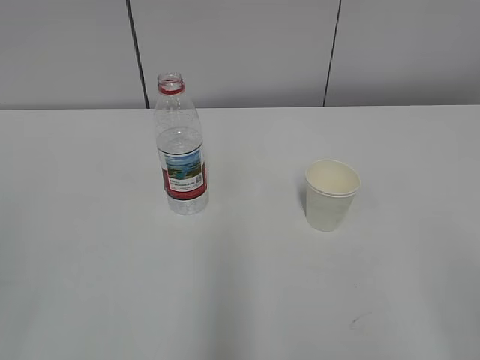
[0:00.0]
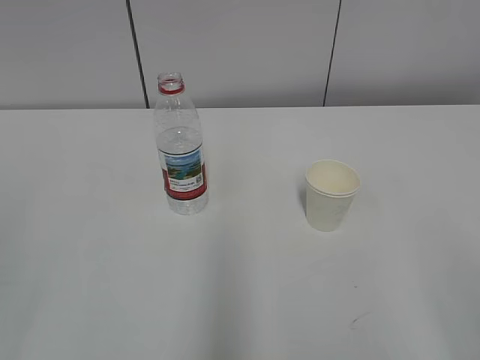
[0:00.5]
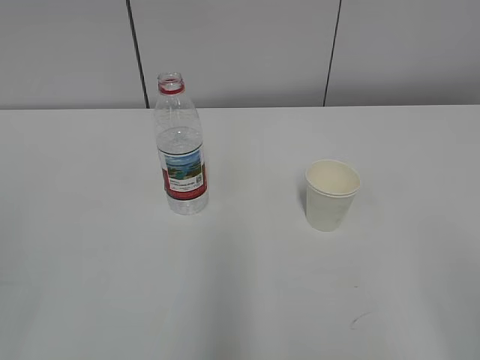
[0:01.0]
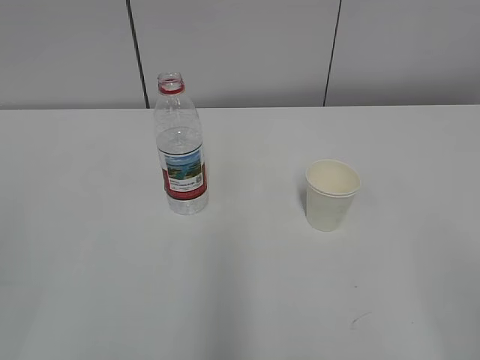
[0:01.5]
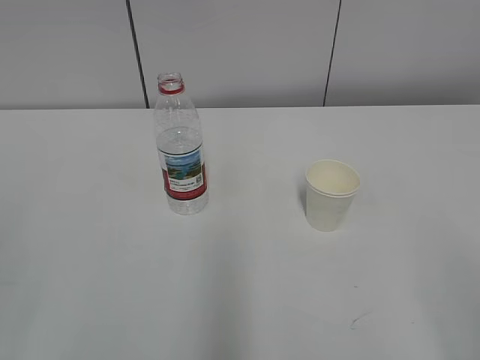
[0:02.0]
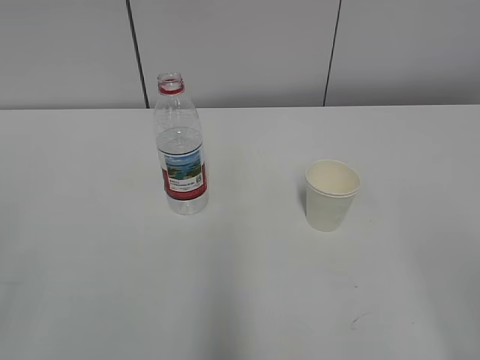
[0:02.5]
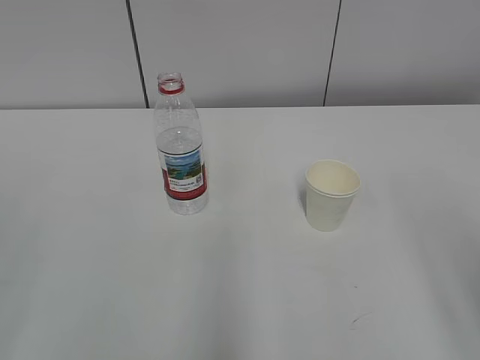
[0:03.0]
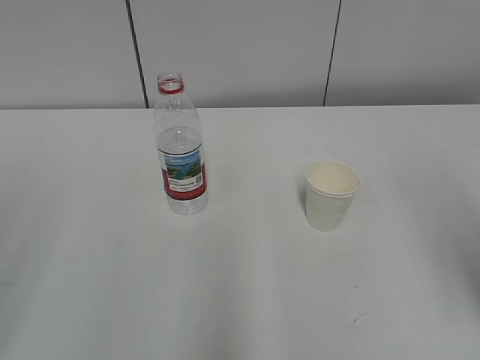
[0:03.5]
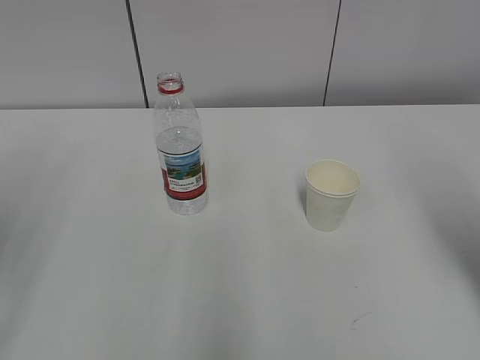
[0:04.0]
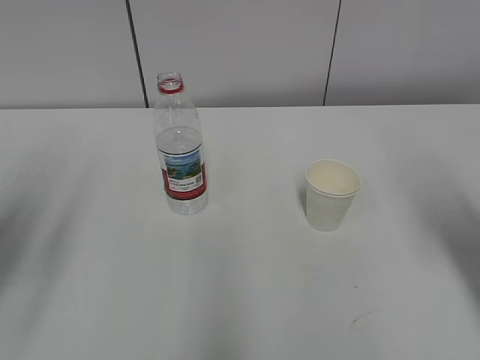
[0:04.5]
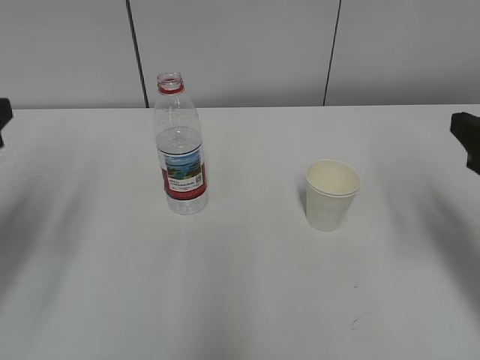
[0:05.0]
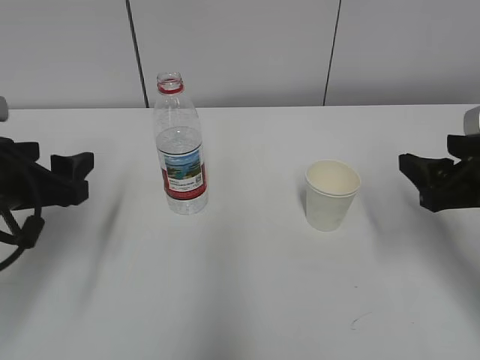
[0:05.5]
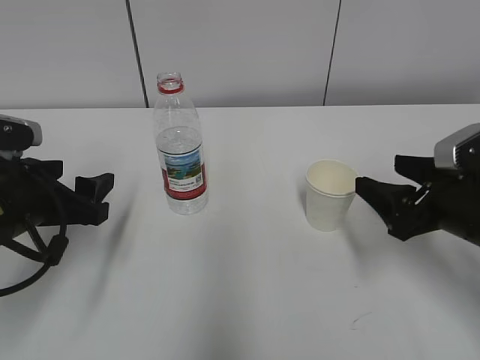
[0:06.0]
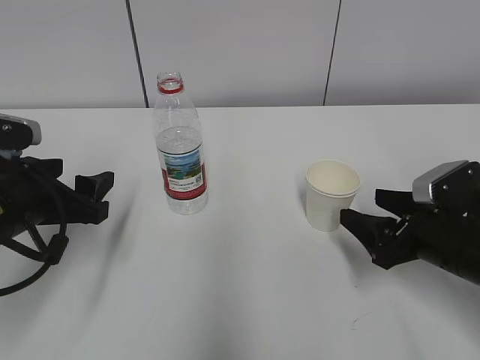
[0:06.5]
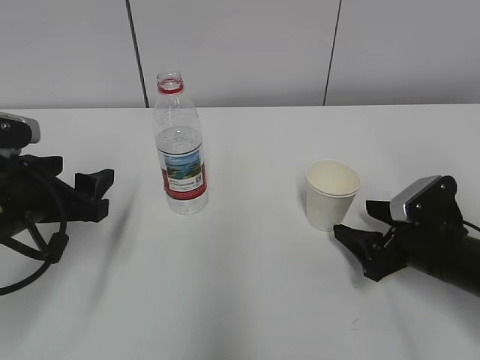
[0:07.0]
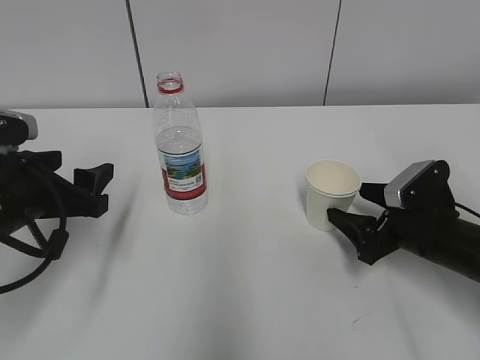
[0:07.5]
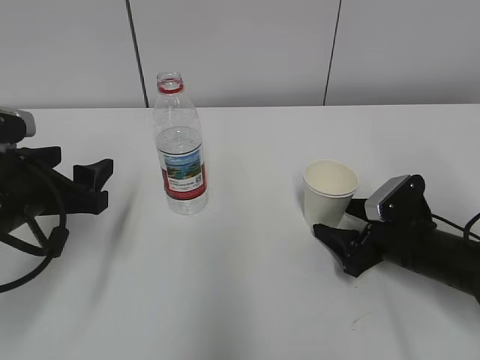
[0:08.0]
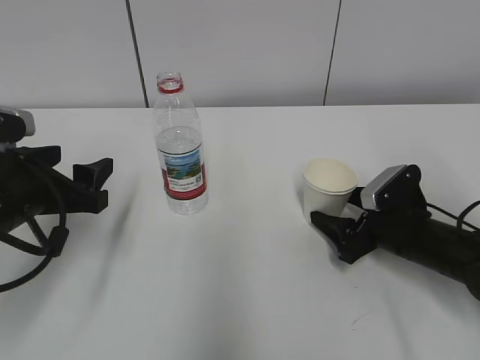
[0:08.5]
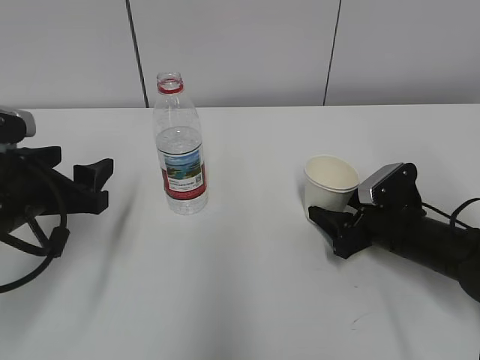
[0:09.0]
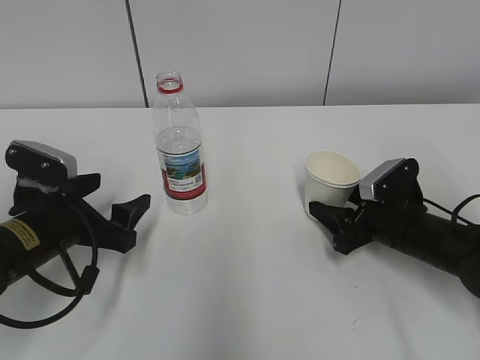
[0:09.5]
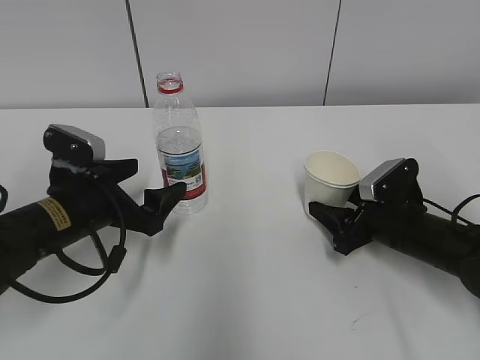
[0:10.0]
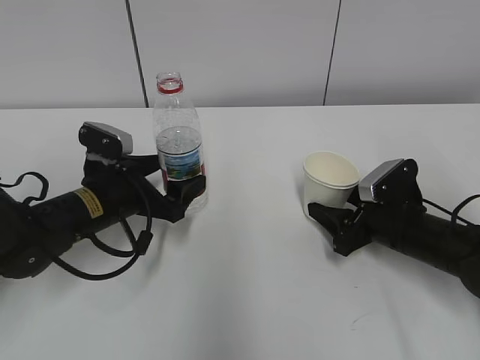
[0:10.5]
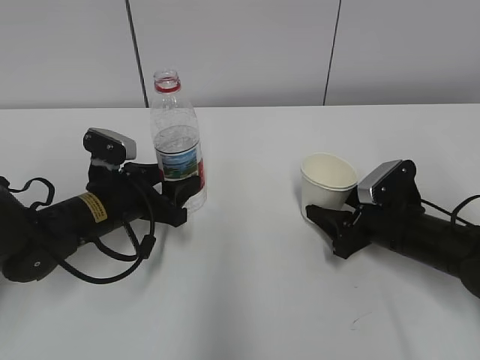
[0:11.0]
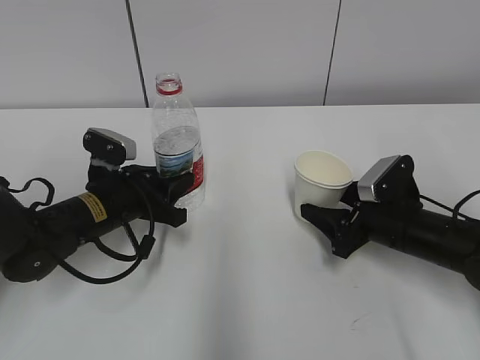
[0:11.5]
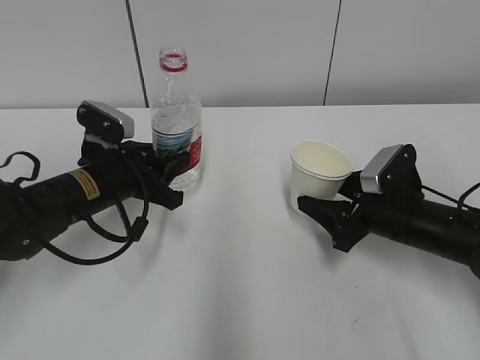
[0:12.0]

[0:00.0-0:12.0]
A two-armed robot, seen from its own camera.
Step, 0:00.0 to 0:07.5: Grab the paper cup with the right hand.
0:02.0 to 0:04.0: The right gripper is displaced forward by about 15 cm.
0:04.0 to 0:06.0: The left gripper is displaced downward, forward and to the right by some 20 cm, while the right gripper shifts approximately 15 cm downward and forward.
0:06.0 to 0:08.0: The right gripper heads downward, covering approximately 10 cm.
0:08.0 to 0:10.0: The right gripper closes its fingers, while the left gripper moves about 5 cm.
0:10.0 to 0:12.0: The left gripper closes up.

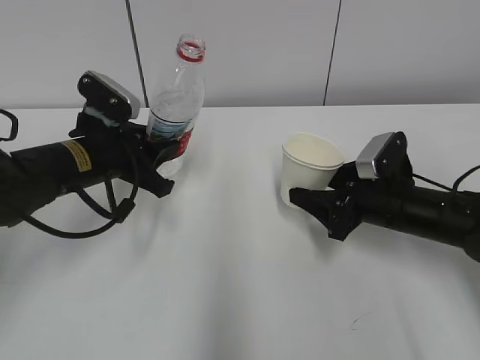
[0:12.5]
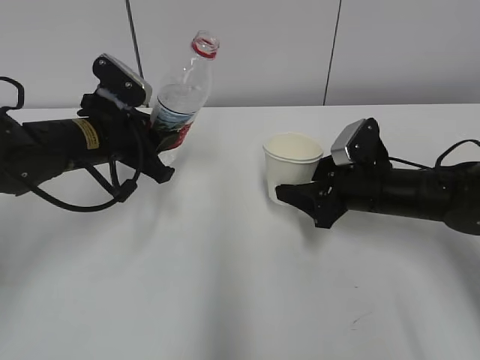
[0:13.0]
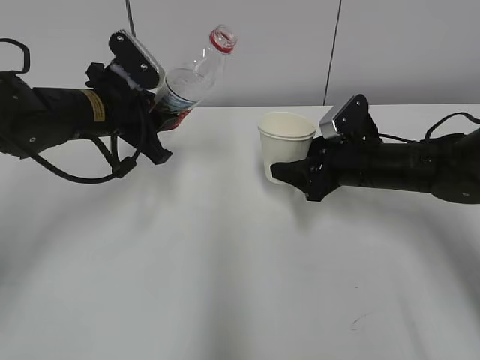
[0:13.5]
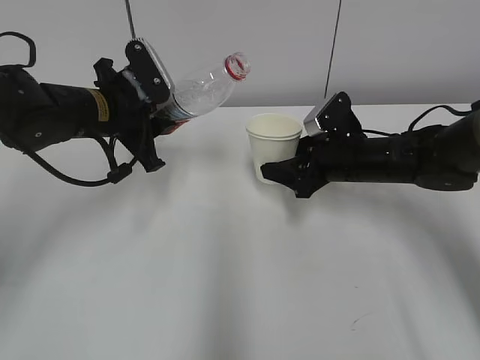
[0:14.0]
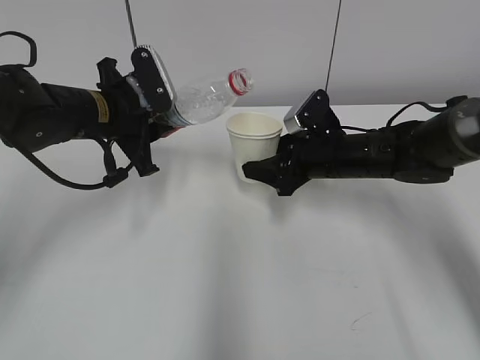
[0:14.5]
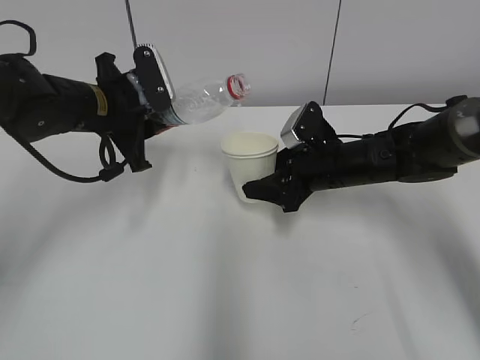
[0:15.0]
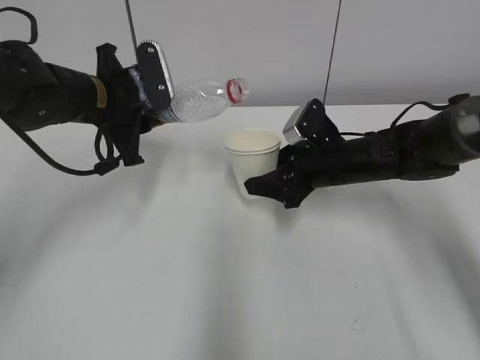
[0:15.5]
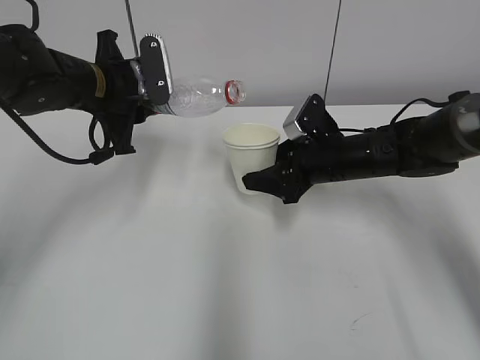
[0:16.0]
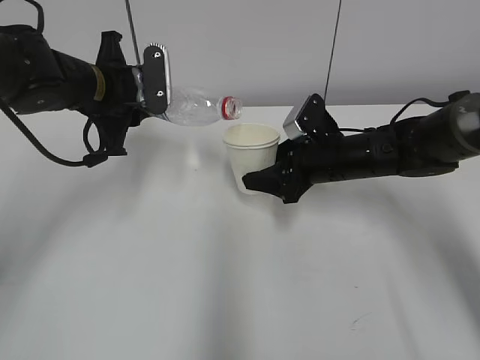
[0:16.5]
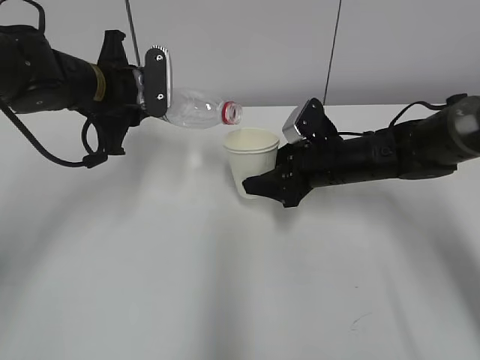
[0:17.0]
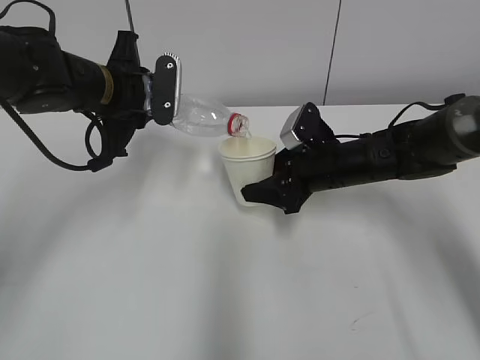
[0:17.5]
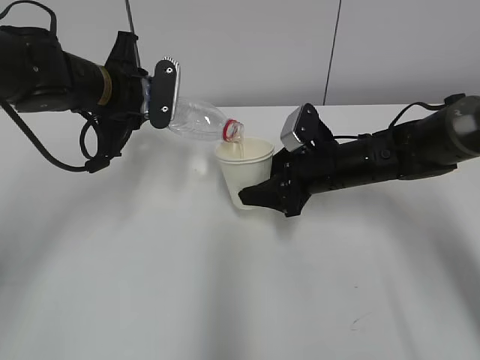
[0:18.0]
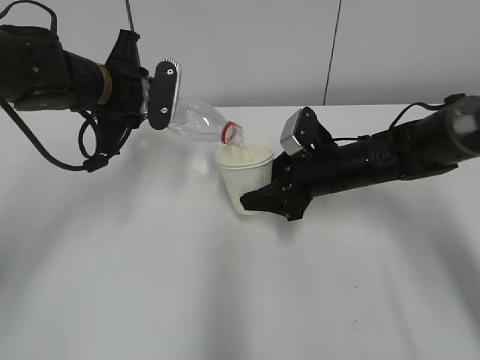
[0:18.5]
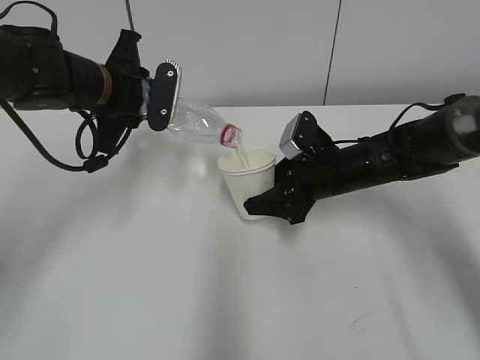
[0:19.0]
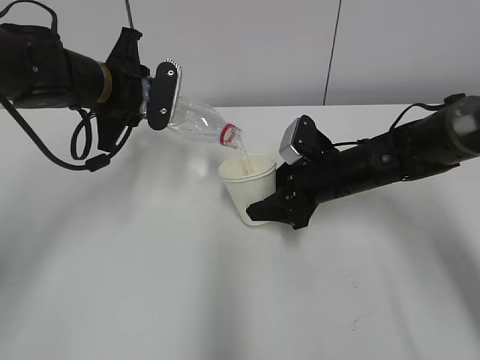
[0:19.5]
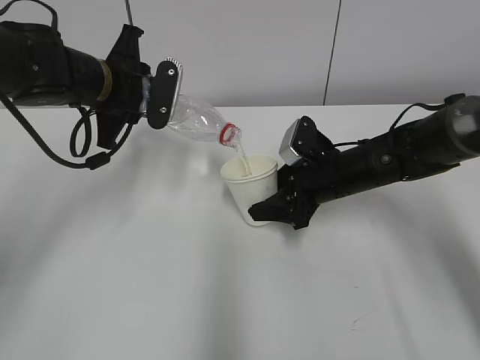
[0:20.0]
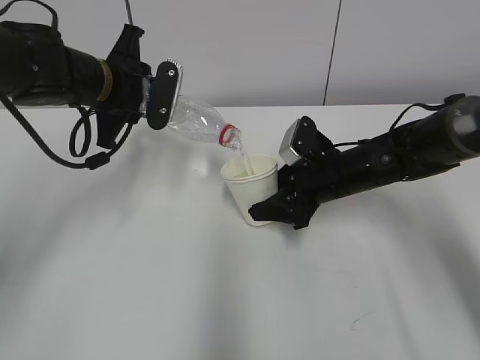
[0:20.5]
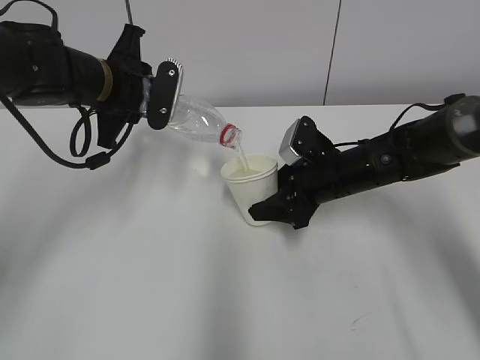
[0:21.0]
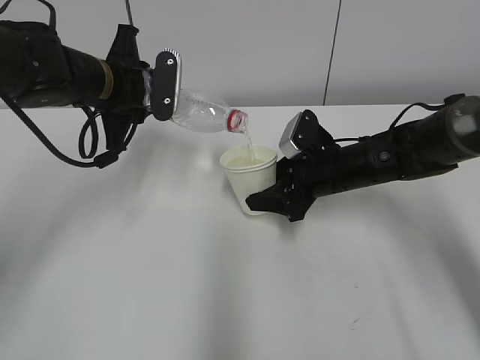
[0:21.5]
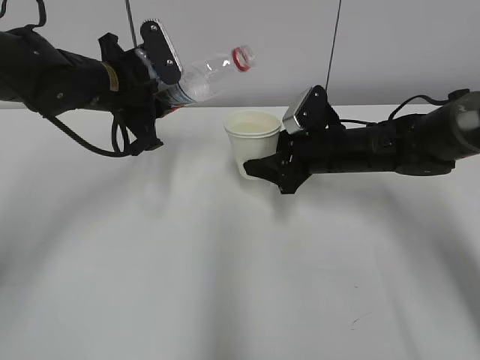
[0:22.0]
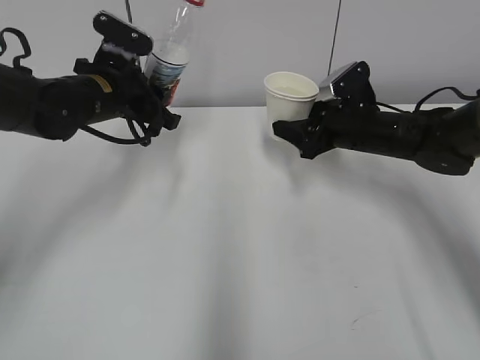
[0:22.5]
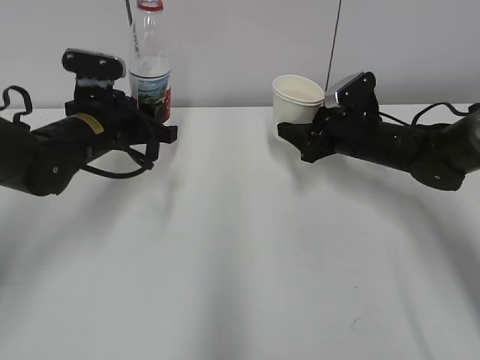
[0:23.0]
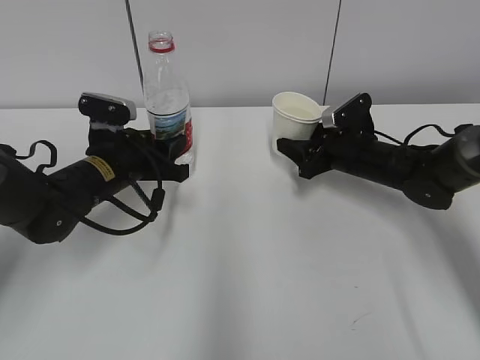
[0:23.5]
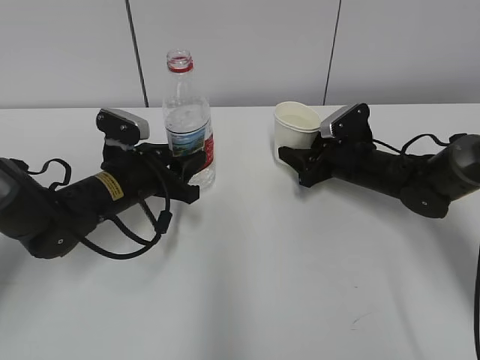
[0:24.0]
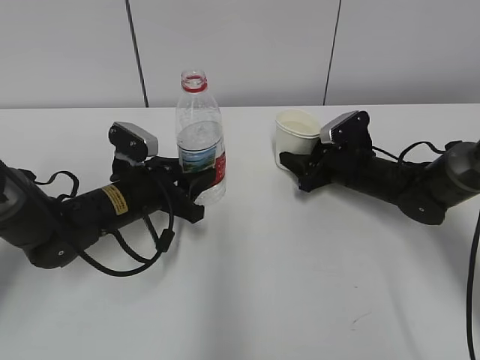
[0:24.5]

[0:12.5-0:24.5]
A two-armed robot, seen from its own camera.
Step, 0:12.5 to 0:14.5: Lift the paper cup with the right hand.
Step, 0:15.0 to 0:18.0: Fill water with the right hand.
Step, 0:15.0 to 0:18.0: Pour water with the left hand.
Step, 0:19.5 to 0:21.5: Place the paper cup with the right hand.
0:12.5 to 0:14.5: The right gripper goes approximately 10 cm forward and to the left. The left gripper moves some 5 cm.
0:16.5 to 0:20.5: There are only small adjustments of the grippers.
0:20.5 to 0:22.5: The right gripper changes place by roughly 5 cm.
0:22.5 to 0:24.5: The left gripper shifts roughly 15 cm downward and backward. Meanwhile the right gripper shifts roughly 10 cm downward.

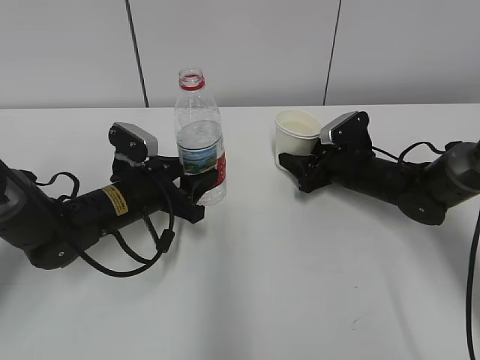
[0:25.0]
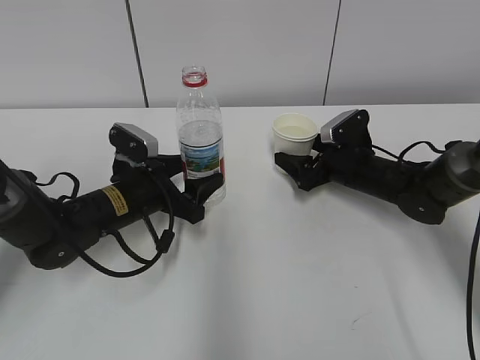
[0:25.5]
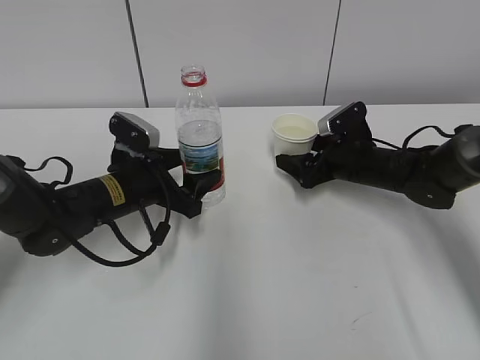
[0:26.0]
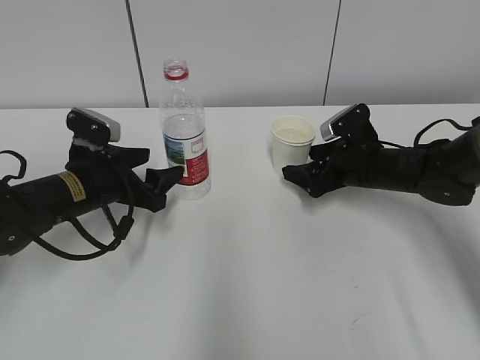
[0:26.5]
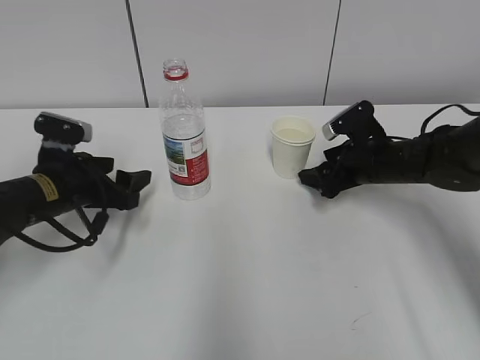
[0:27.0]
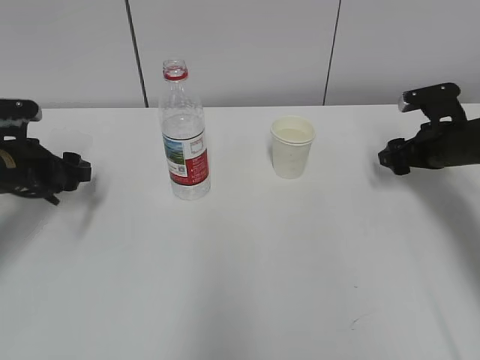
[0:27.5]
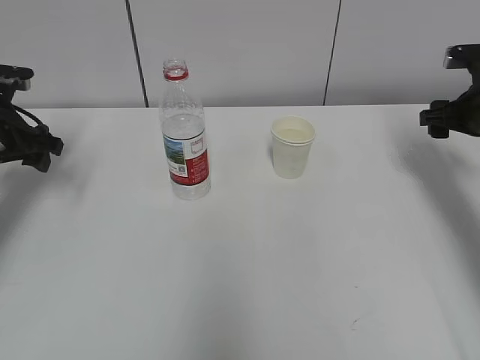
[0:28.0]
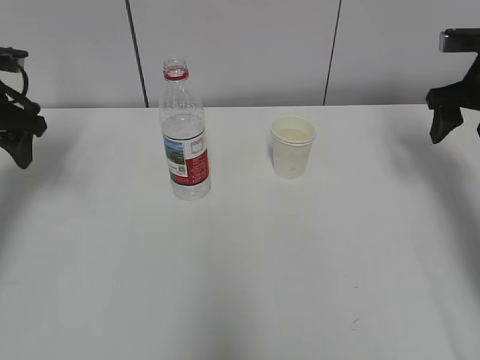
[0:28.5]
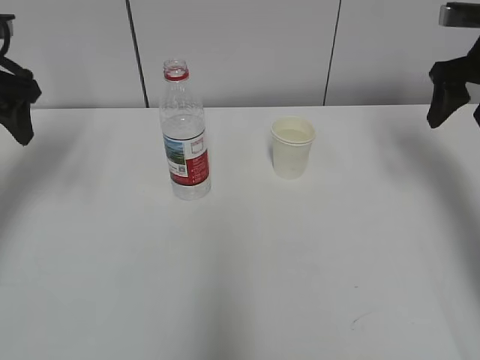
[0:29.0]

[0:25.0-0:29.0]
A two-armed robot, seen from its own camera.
0:25.0 to 0:27.0: The right gripper opens up. The left gripper travels to the left by some 10 cm, and opens its fingers.
0:27.0 to 0:29.0: The left gripper moves upward and to the left, approximately 20 cm; the right gripper heads upward and to the right, covering about 20 cm.
